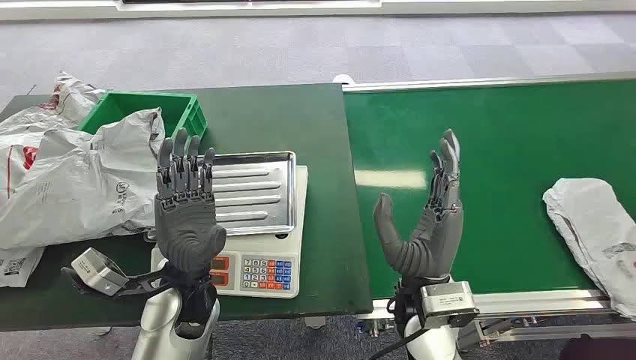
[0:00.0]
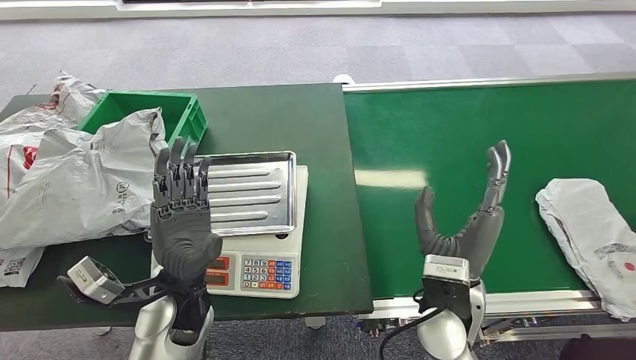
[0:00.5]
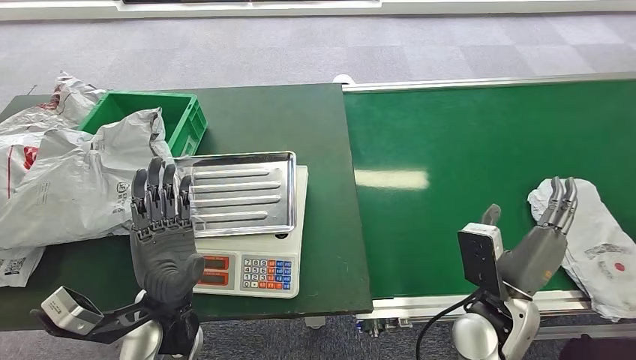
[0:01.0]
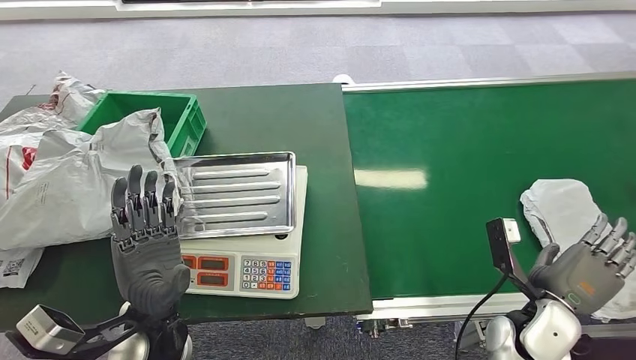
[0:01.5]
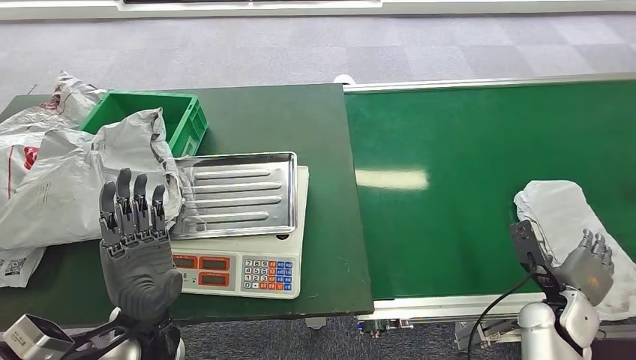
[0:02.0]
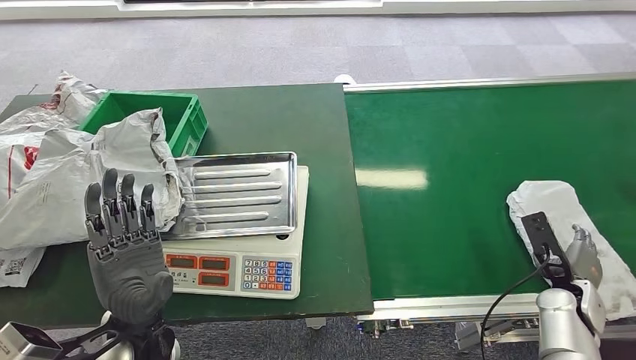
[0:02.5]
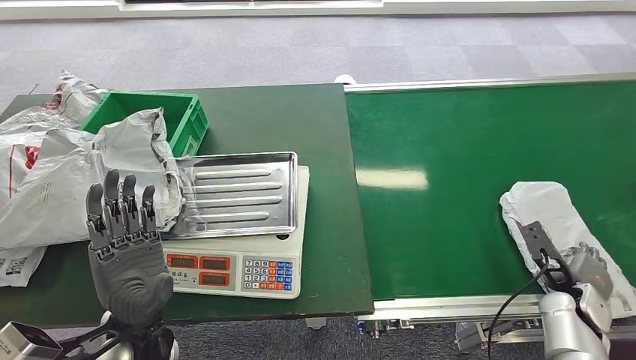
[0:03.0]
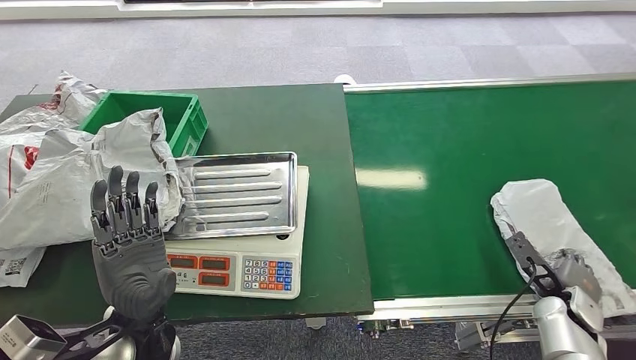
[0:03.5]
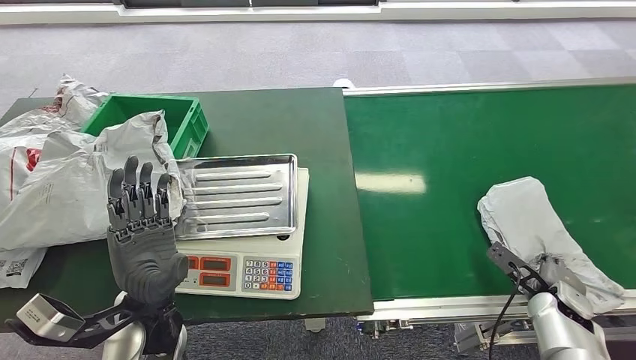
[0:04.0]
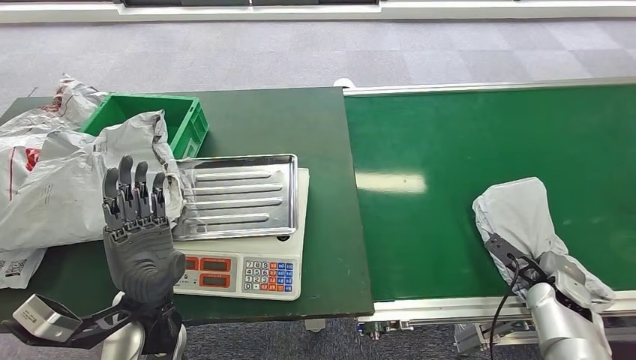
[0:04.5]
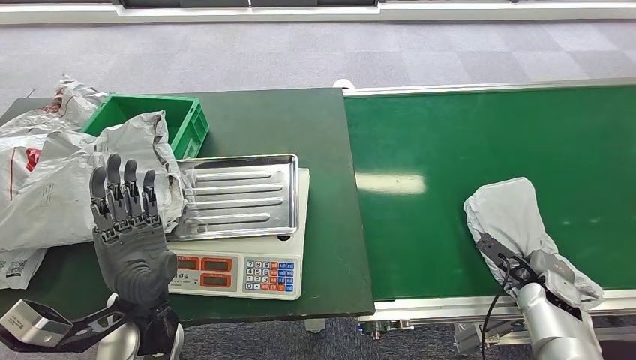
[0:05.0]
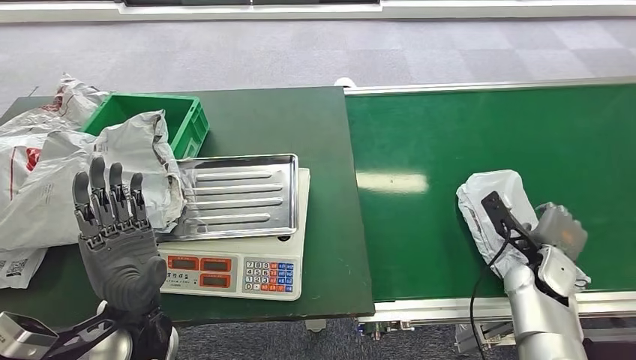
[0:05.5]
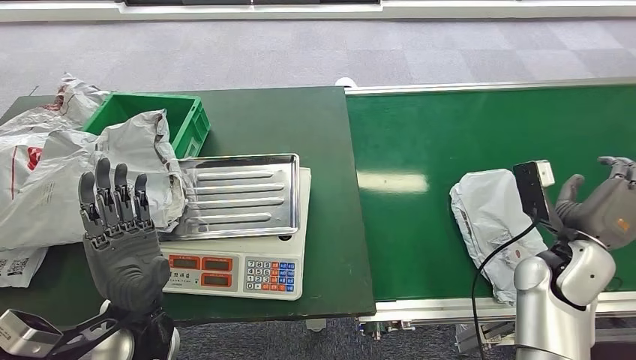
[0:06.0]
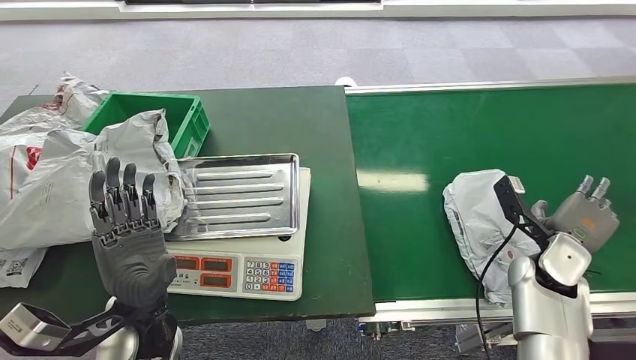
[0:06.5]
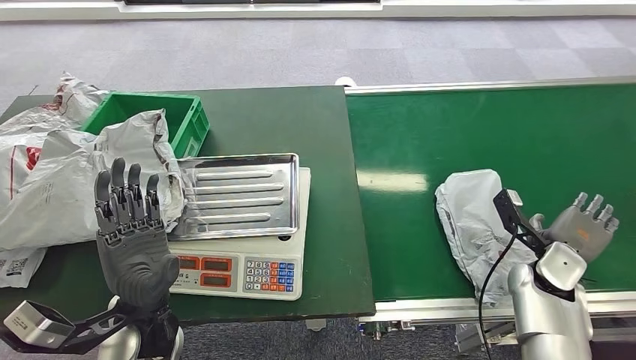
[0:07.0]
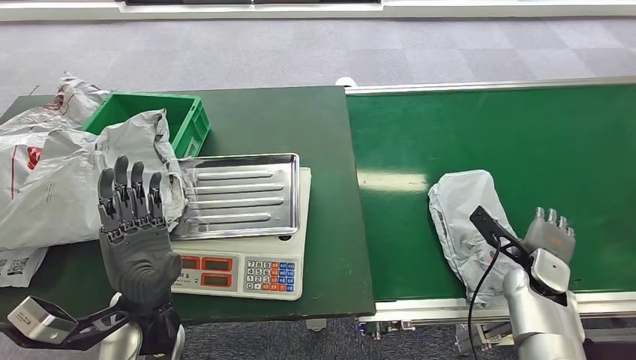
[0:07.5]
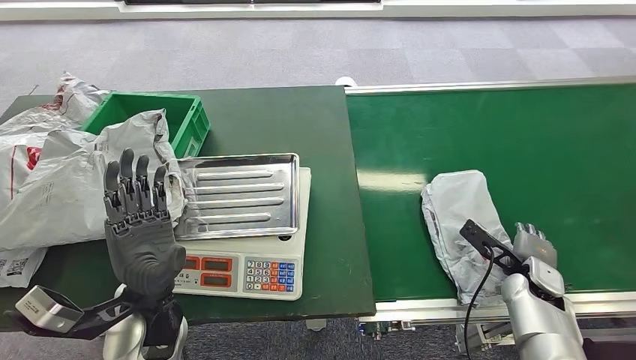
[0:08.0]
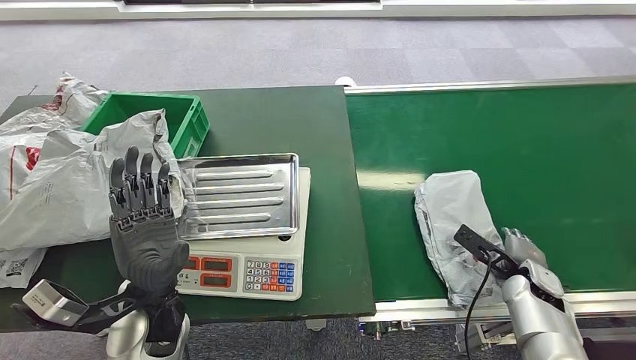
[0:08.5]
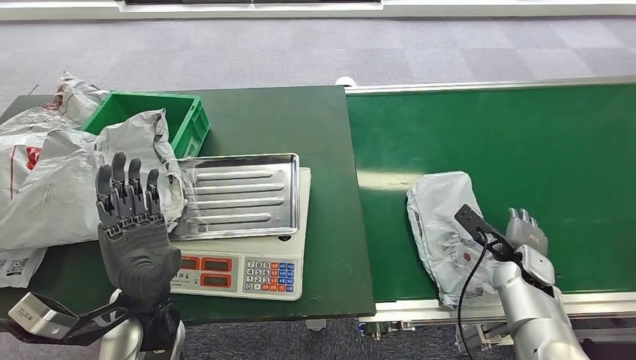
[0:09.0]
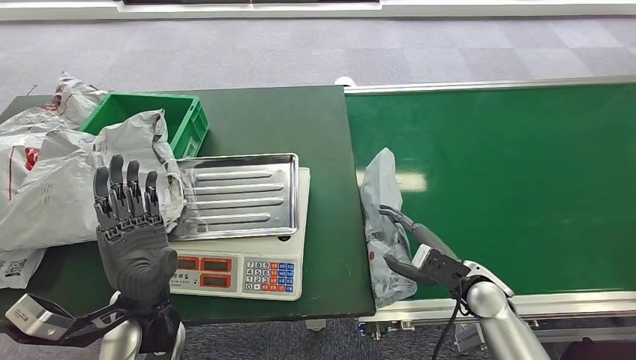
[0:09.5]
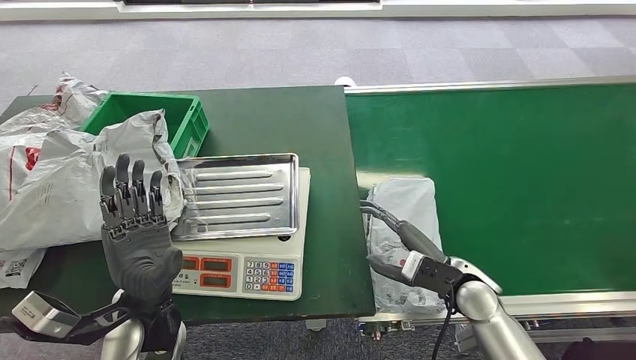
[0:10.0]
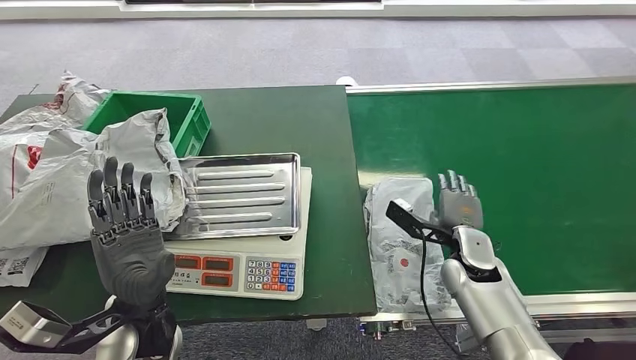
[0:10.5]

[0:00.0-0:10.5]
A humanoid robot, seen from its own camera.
0:06.5 to 0:08.5: The right hand travels downward by roughly 10 cm.
0:08.5 to 0:10.5: The right hand is displaced to the left and upward by some 15 cm.

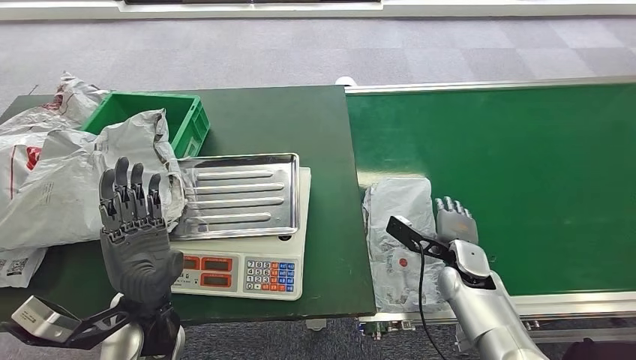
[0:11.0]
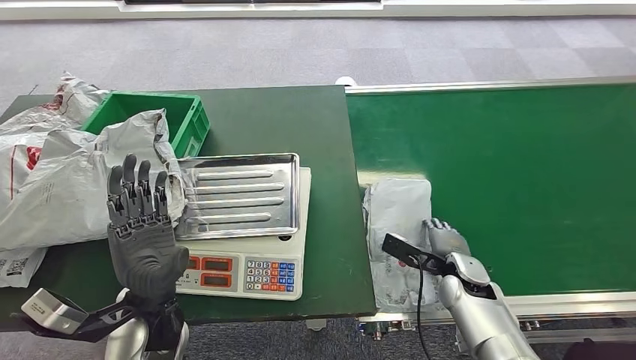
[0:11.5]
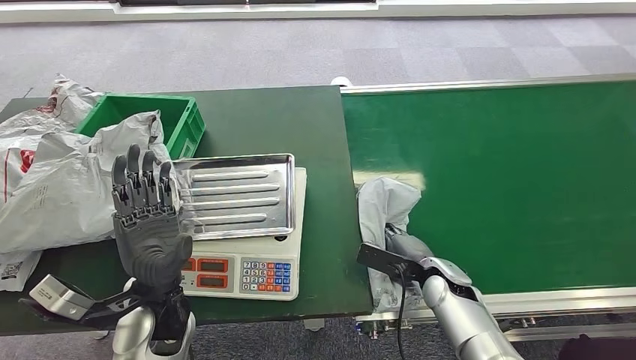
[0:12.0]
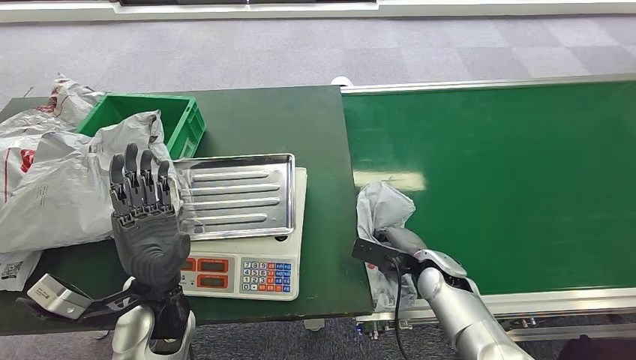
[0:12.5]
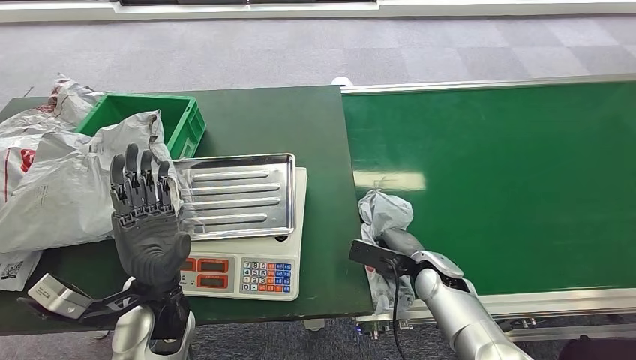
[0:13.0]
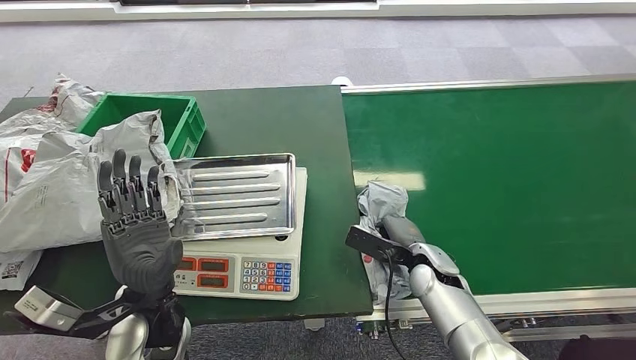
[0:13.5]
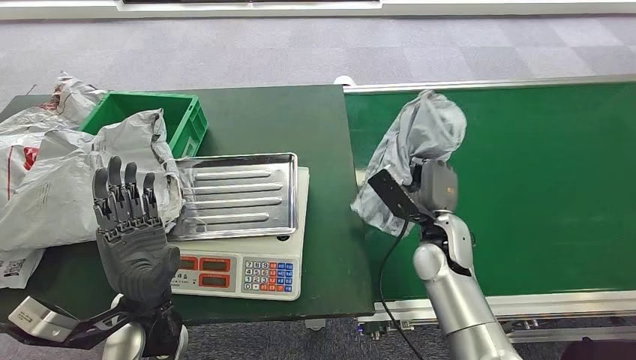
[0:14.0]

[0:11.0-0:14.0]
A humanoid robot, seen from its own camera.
Step, 0:11.0 to 0:14.0: Pick up the package from the conveyor belt.
